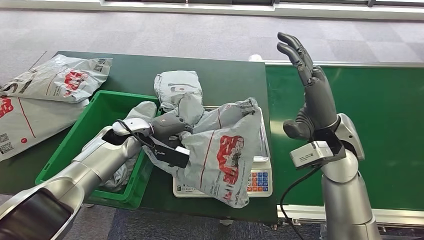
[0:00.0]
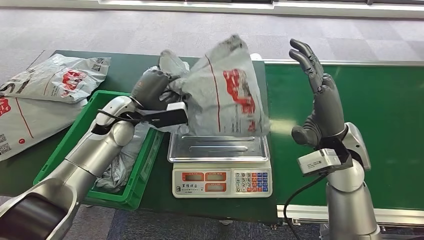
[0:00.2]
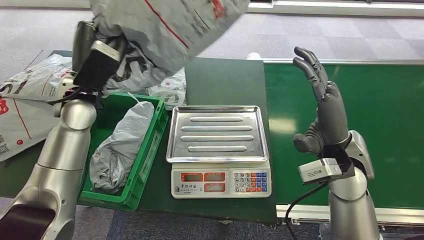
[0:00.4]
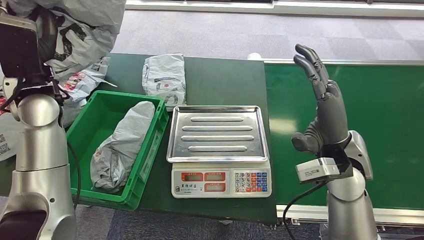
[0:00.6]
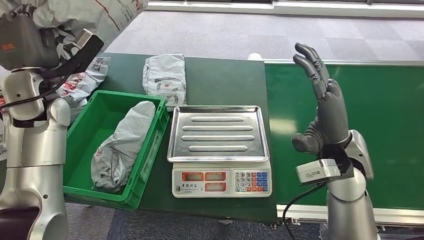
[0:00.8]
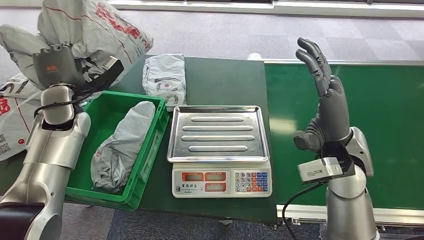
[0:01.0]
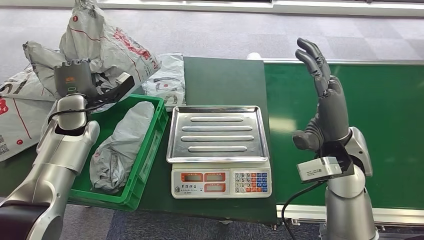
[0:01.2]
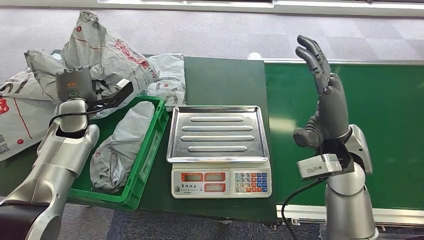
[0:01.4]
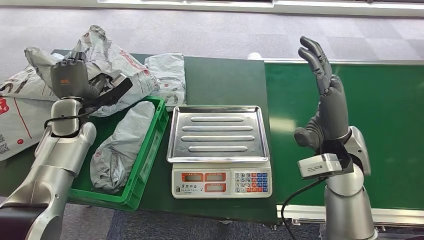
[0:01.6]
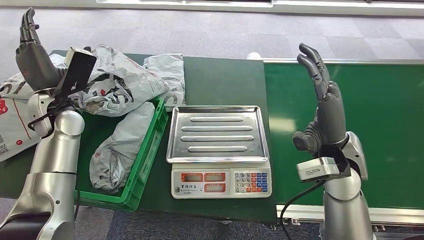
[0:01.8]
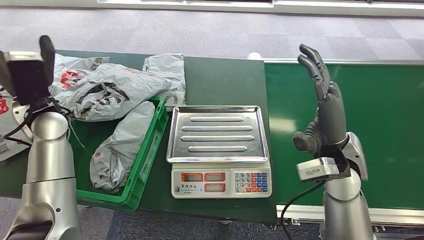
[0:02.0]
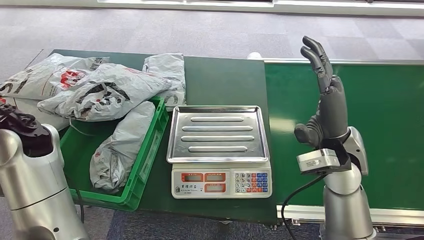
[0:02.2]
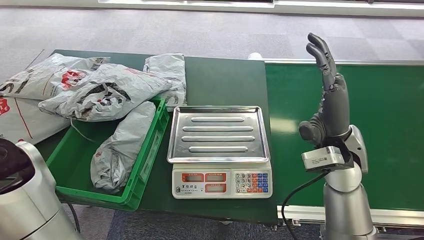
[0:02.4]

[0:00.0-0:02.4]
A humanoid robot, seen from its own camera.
Step, 0:00.8 to 0:02.4: Place the package into the parcel locker.

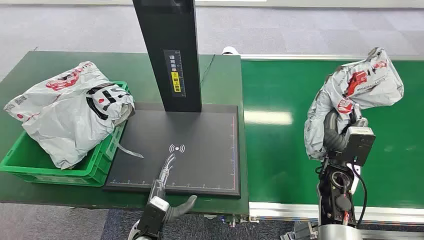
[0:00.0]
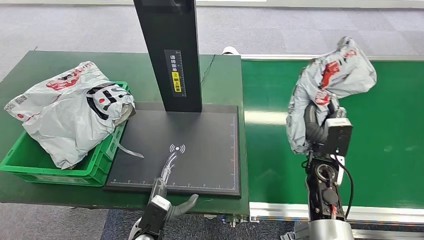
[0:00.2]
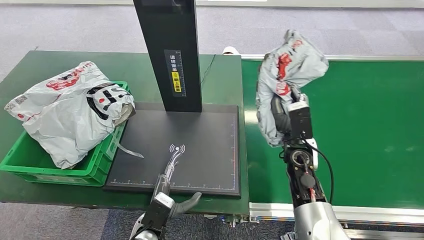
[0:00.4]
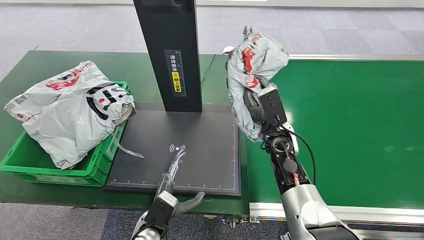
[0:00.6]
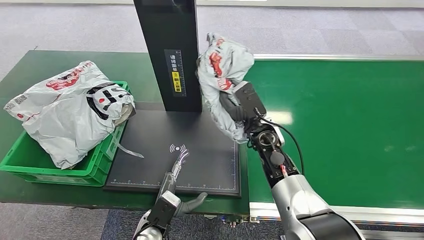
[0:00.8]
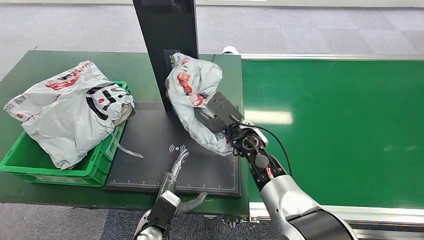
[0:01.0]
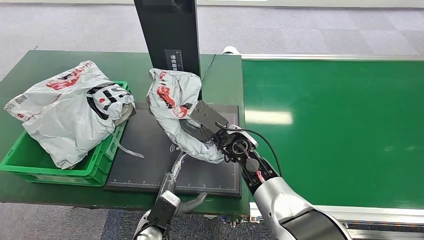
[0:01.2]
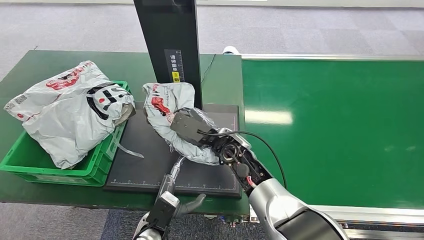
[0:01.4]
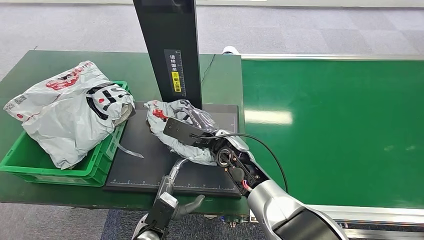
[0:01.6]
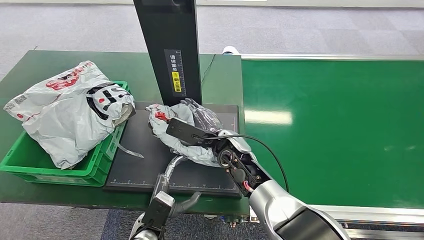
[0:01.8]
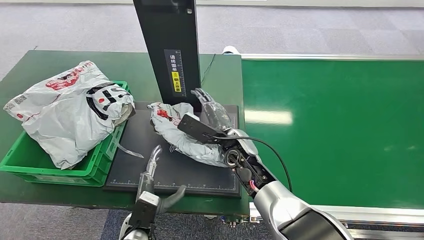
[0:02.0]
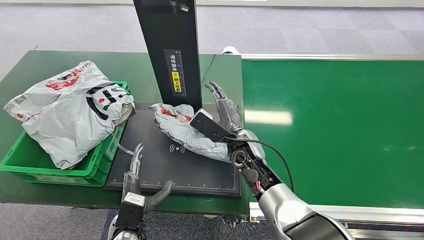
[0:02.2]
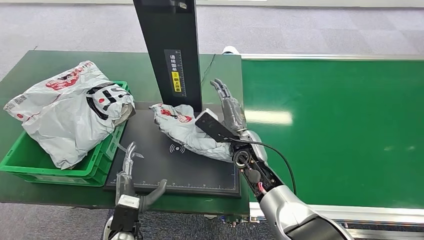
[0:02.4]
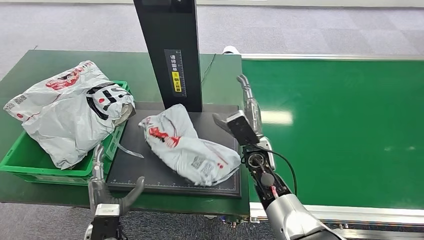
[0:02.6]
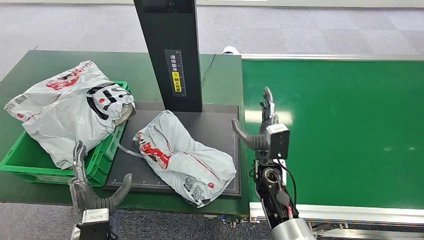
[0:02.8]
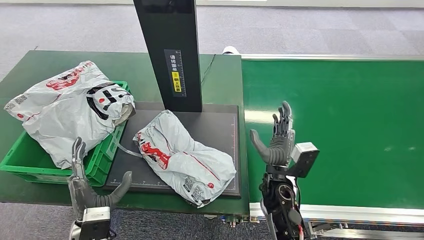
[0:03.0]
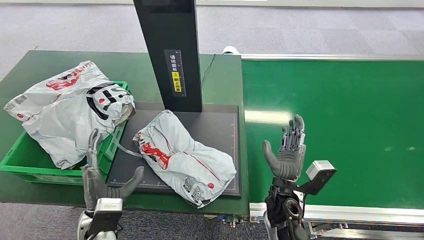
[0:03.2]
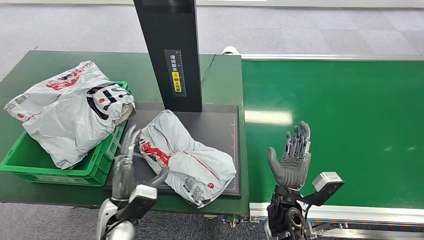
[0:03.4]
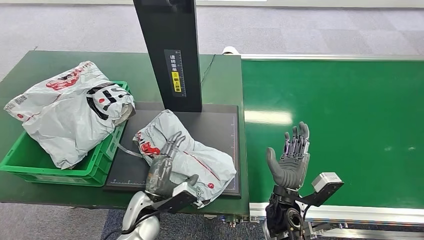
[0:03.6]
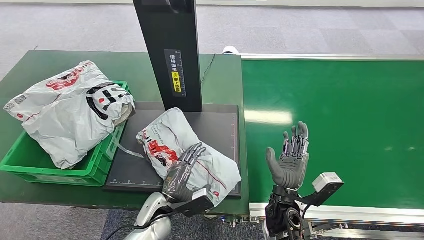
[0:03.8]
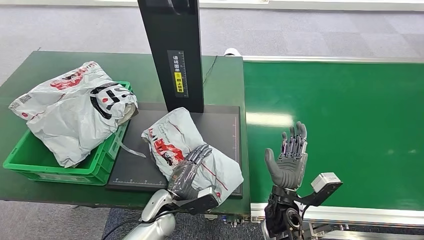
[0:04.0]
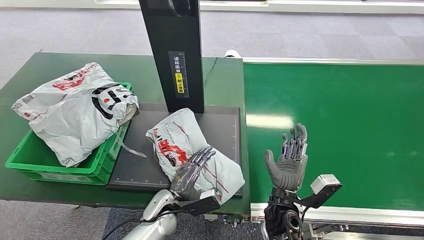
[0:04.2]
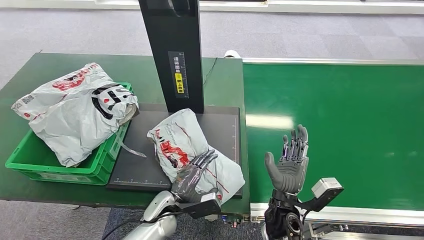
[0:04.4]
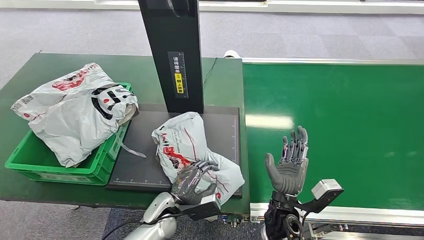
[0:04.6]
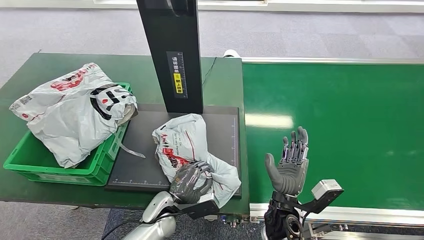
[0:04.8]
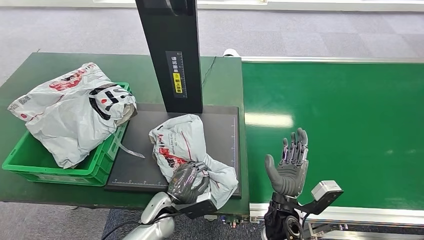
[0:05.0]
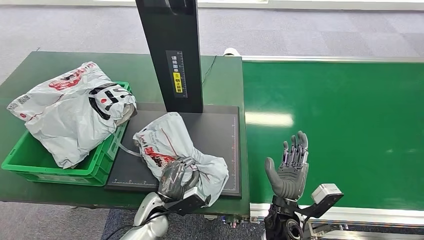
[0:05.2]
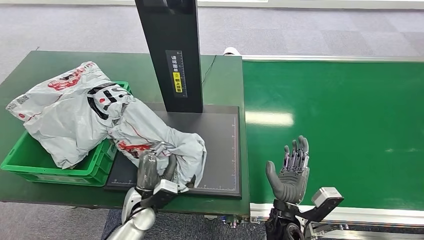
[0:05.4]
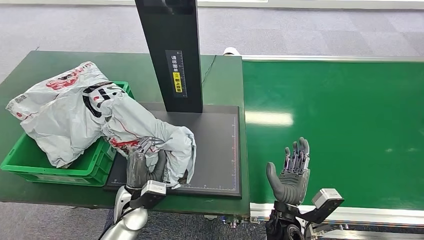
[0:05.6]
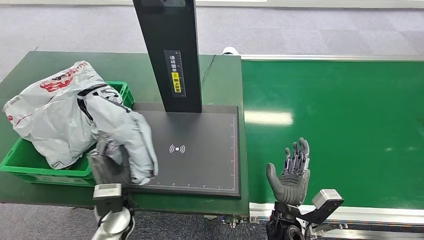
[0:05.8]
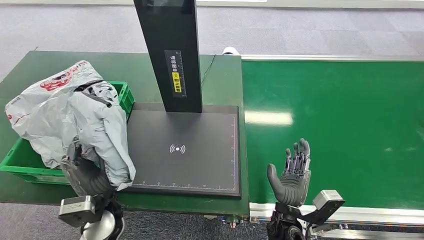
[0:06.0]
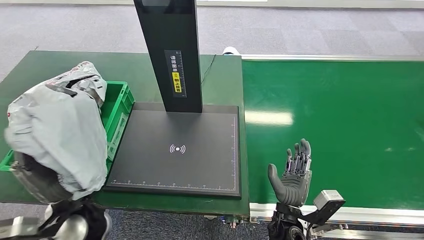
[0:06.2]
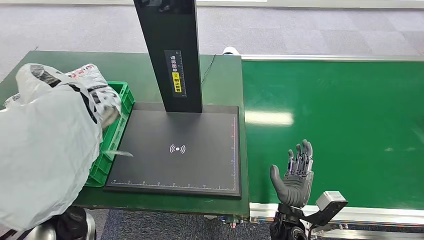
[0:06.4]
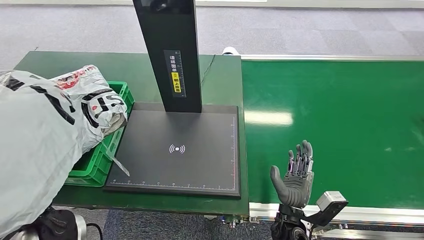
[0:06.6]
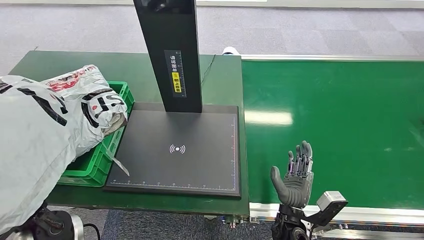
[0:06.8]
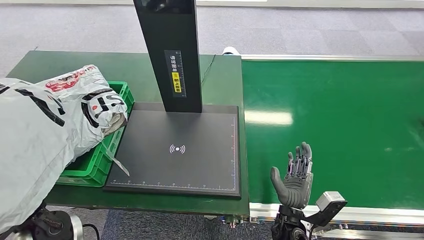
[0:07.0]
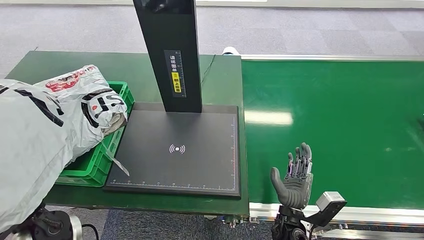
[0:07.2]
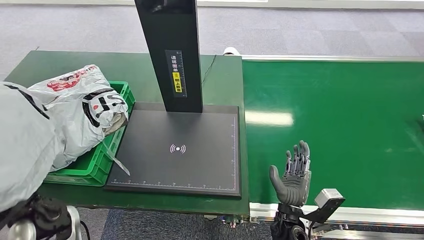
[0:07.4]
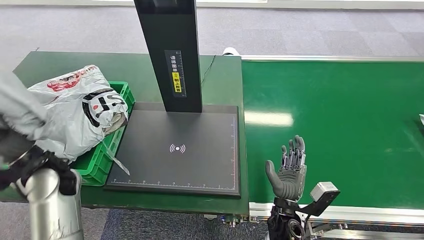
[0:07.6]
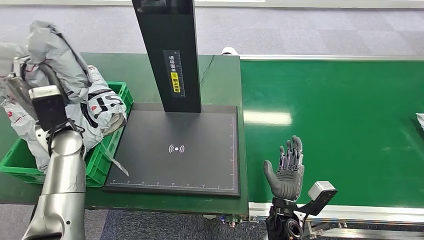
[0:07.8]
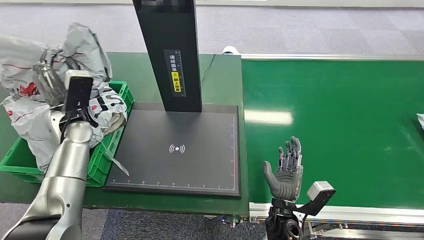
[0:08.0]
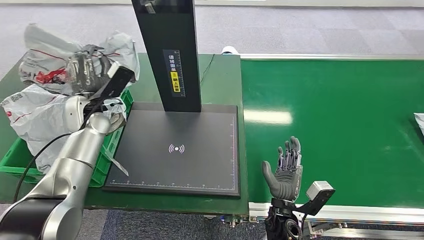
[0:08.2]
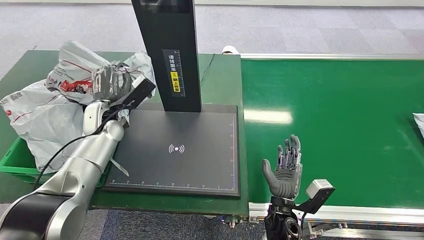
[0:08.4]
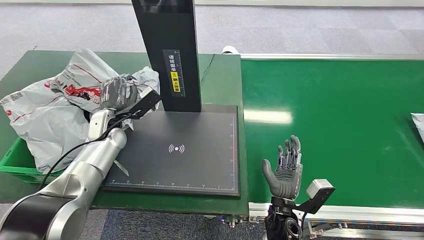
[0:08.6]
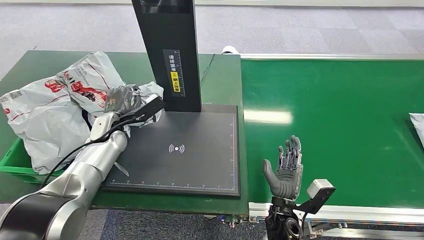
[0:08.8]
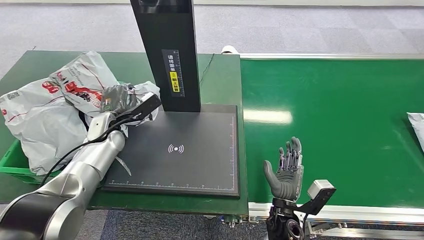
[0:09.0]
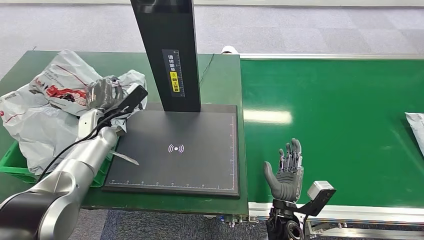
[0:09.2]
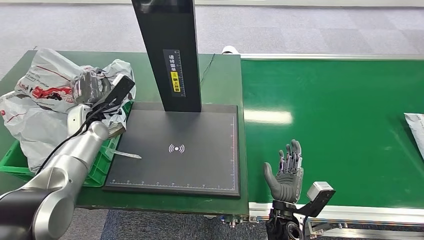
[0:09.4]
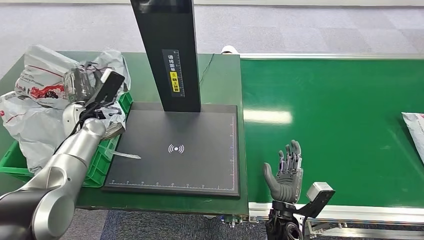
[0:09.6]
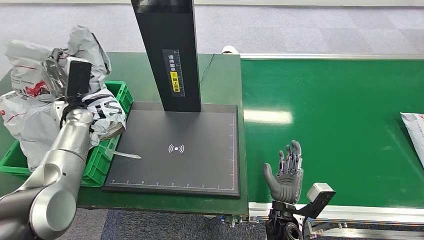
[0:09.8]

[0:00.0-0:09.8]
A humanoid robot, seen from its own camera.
Step, 0:00.0 to 0:00.2: Pick up the package from the conveyor belt.
0:01.4 to 0:02.8: The left hand travels to the left and upward by about 10 cm. Meanwhile the right hand travels to the right and downward by some 10 cm.
0:08.4 to 0:09.8: The left hand moves to the left, roughly 5 cm.

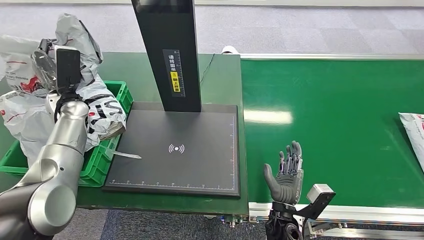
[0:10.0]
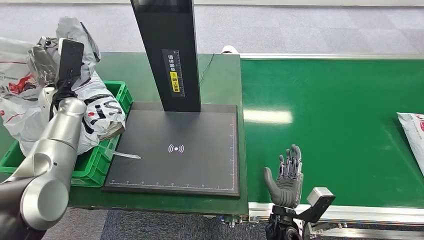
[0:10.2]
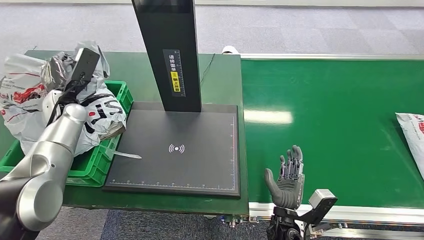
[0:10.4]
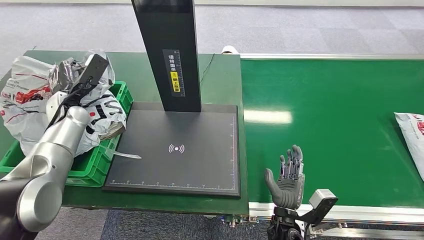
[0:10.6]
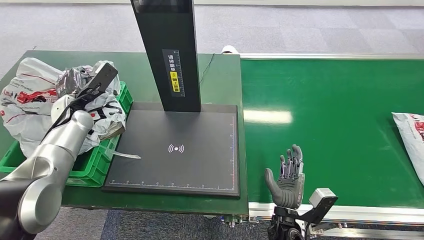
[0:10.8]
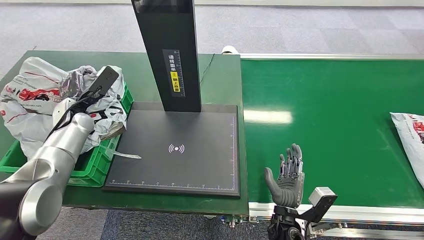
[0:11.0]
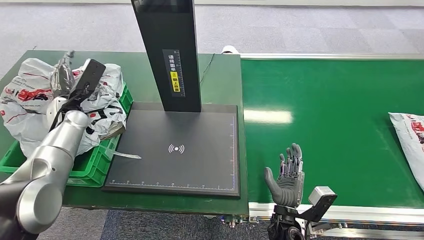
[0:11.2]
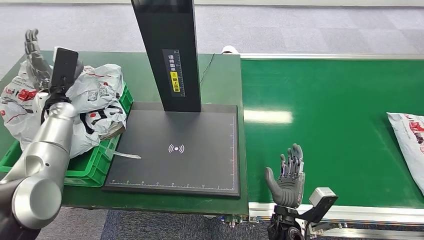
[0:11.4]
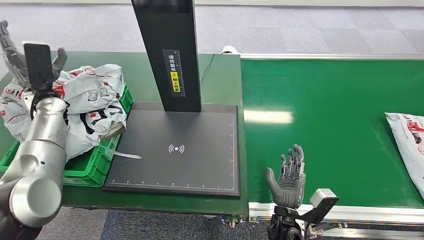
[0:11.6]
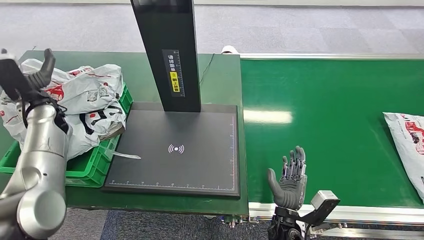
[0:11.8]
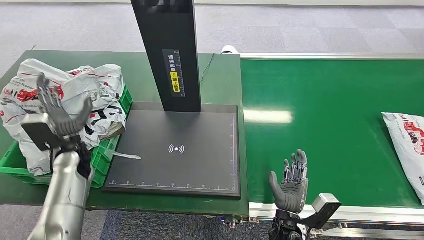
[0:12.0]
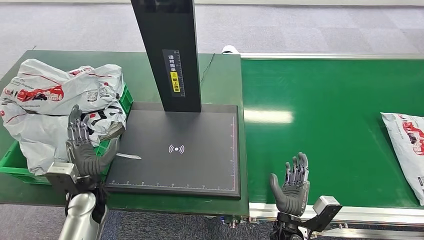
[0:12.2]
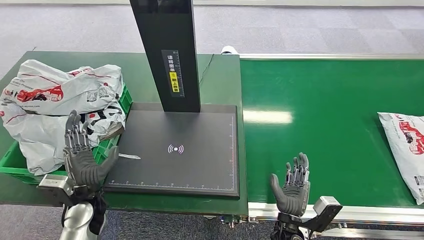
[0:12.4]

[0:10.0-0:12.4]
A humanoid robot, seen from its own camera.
Step, 0:12.2 to 0:12.4: Place the package into the parcel locker.
0:11.2 to 0:12.4: The left hand moves backward, downward and to the right, some 25 cm.

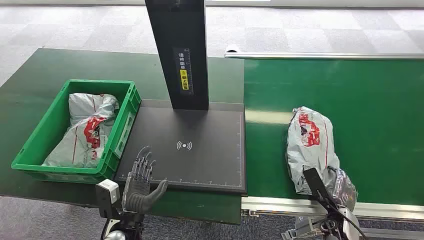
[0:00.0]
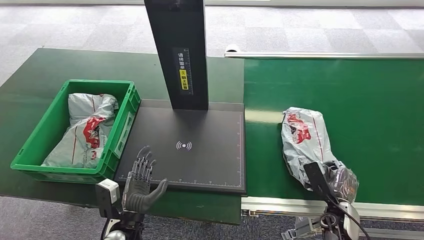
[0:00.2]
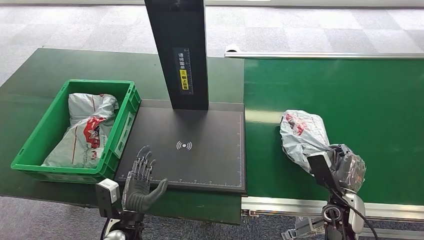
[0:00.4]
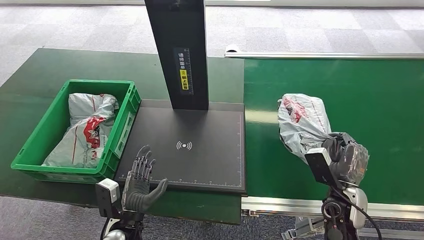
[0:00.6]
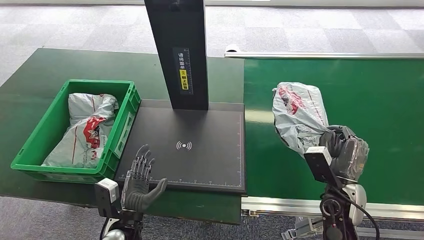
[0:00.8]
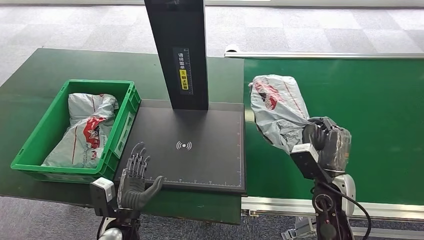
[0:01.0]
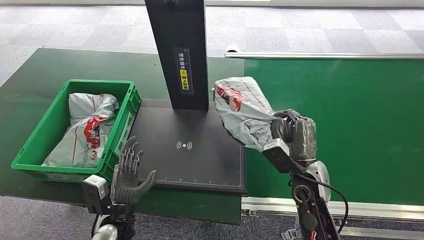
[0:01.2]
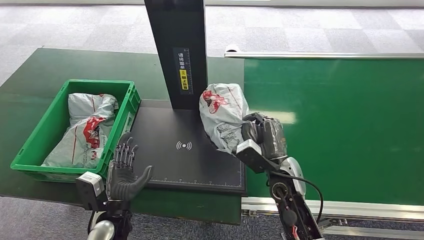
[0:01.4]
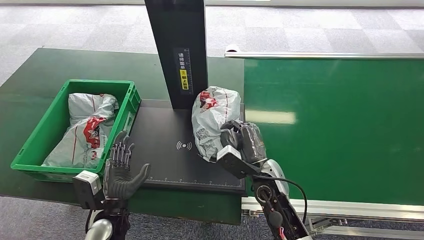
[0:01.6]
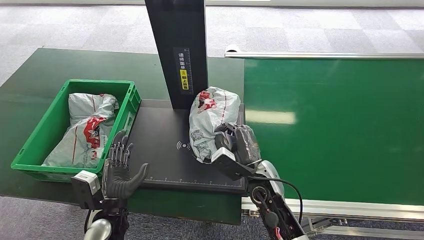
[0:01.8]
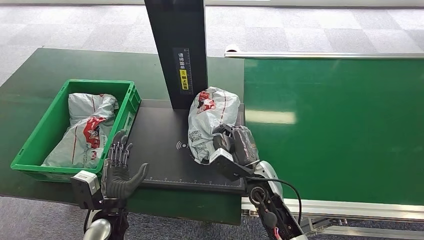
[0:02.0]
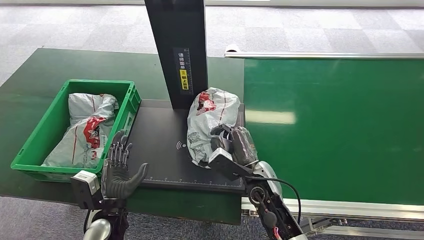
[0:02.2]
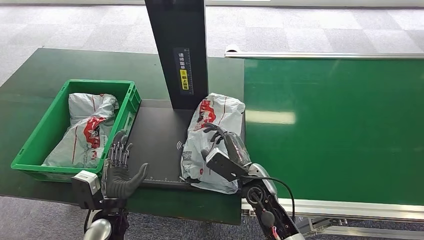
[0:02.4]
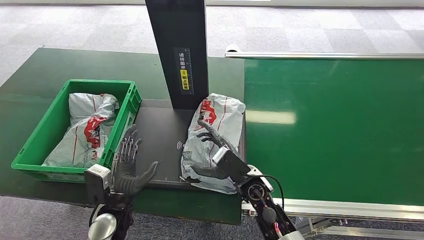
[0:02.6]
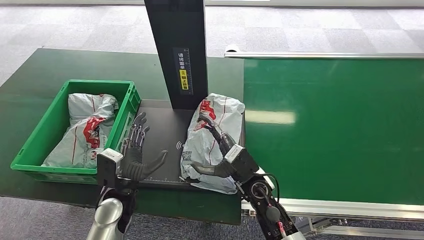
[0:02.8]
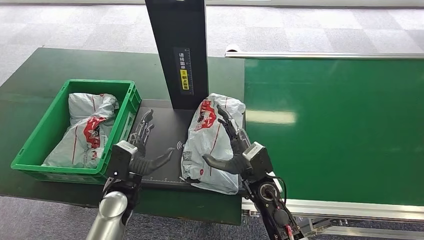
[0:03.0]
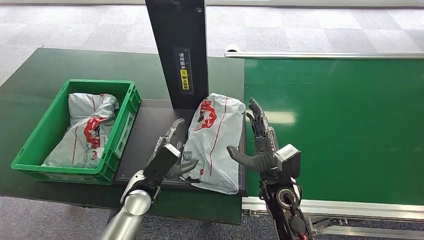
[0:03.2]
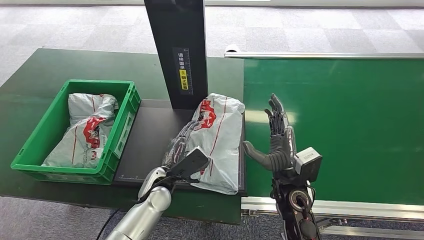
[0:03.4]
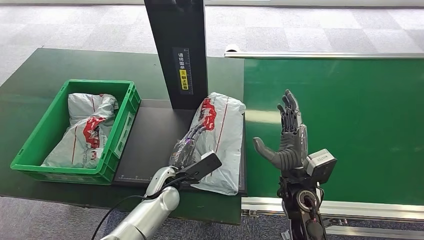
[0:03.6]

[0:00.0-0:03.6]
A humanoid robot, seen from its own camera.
Step, 0:00.0 to 0:01.2: Pick up the package from the conveyor belt.
Step, 0:01.6 to 0:03.6: Place the package onto the inbound machine.
0:01.8 to 0:03.6: The left hand heads to the right and forward, covering some 15 cm. Meanwhile the right hand travels to the right by some 5 cm.
